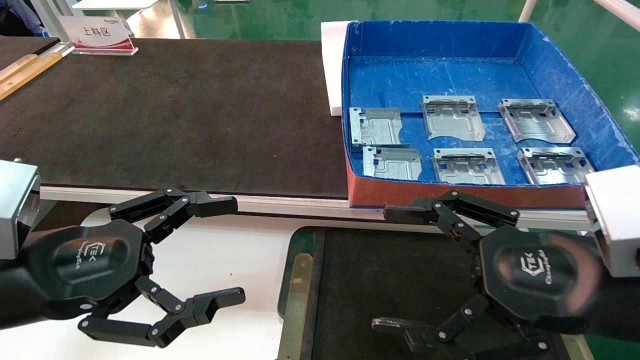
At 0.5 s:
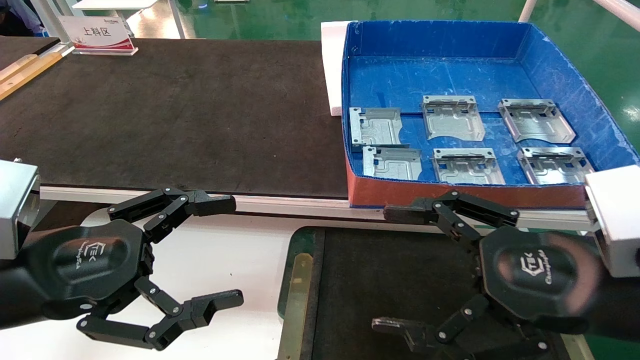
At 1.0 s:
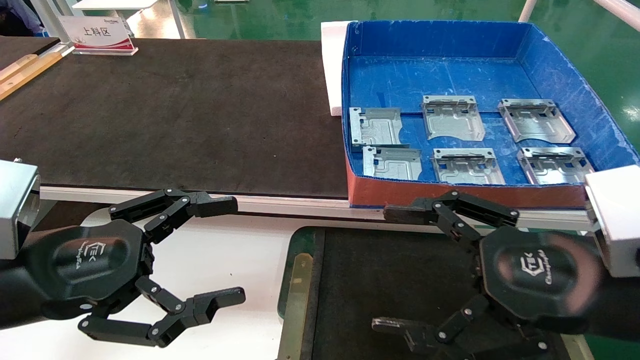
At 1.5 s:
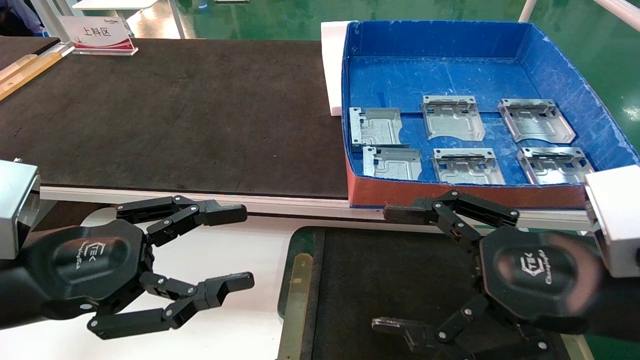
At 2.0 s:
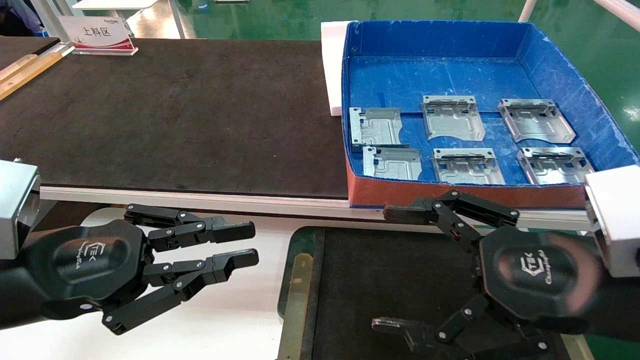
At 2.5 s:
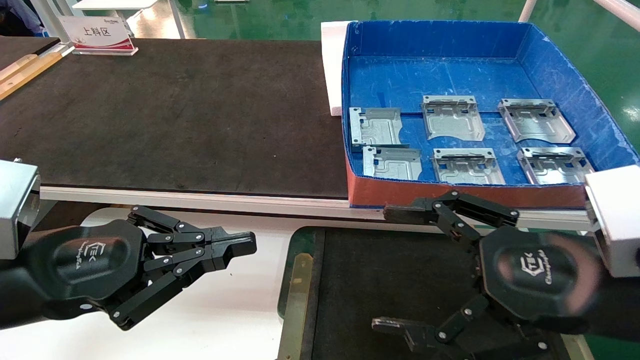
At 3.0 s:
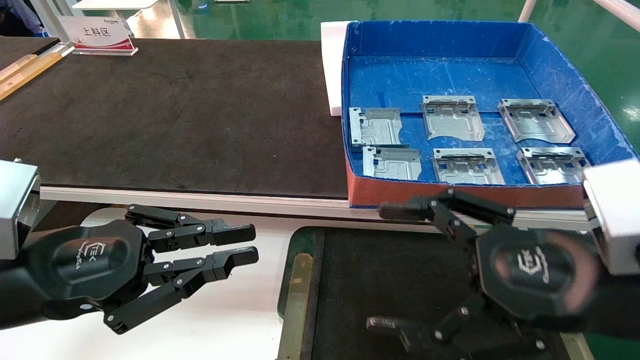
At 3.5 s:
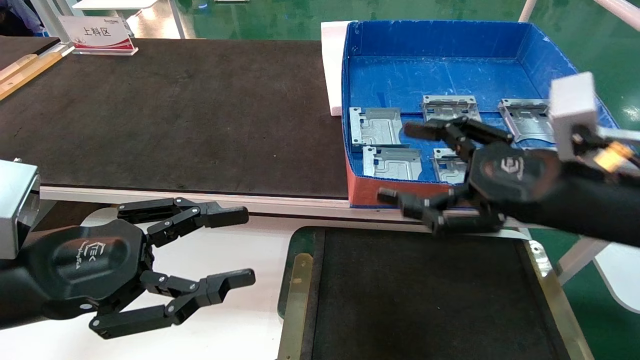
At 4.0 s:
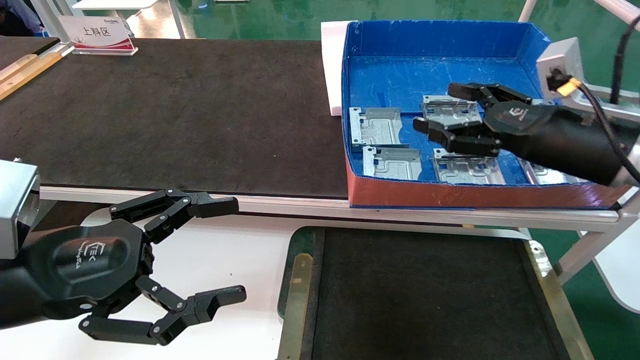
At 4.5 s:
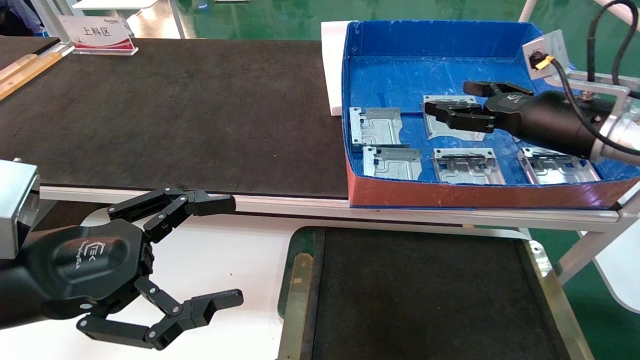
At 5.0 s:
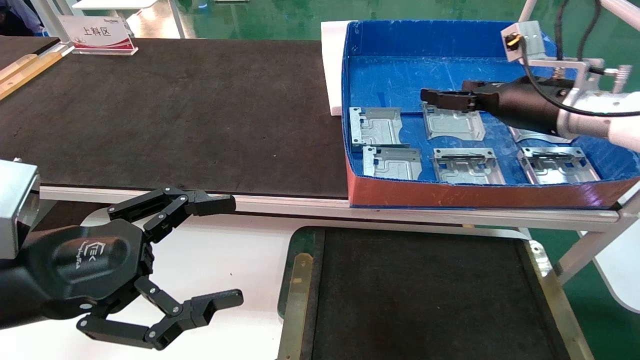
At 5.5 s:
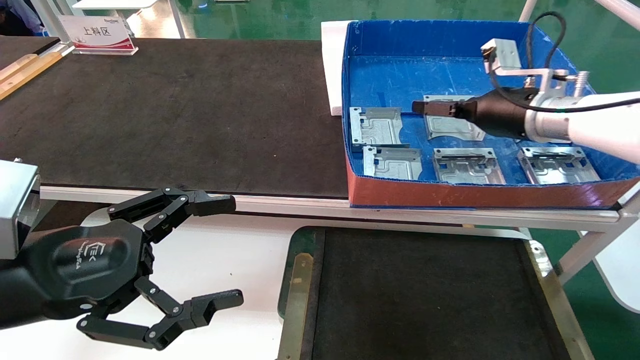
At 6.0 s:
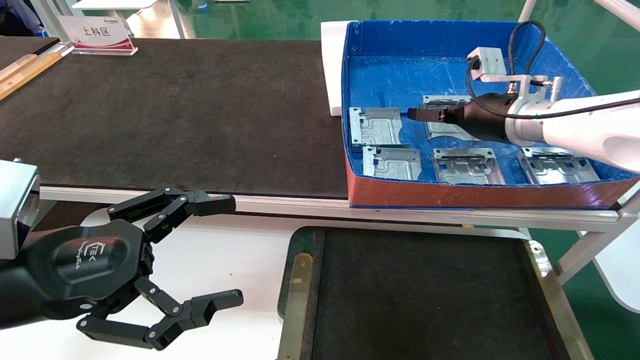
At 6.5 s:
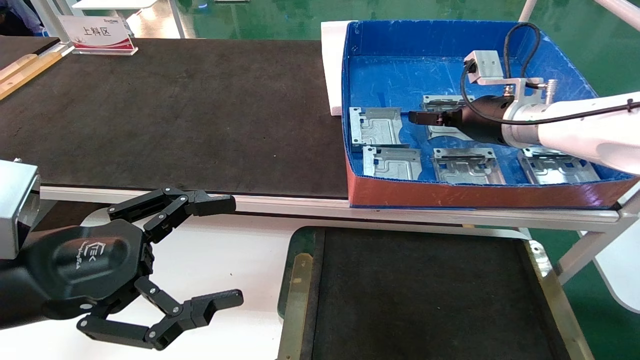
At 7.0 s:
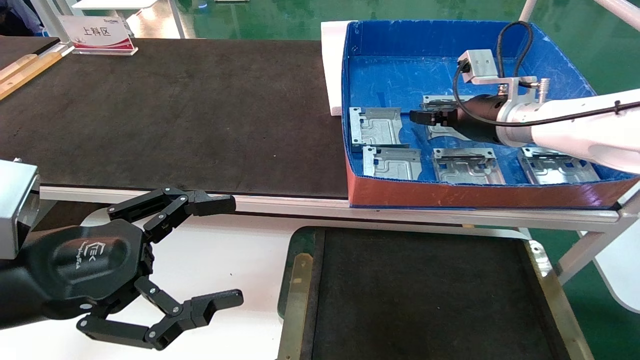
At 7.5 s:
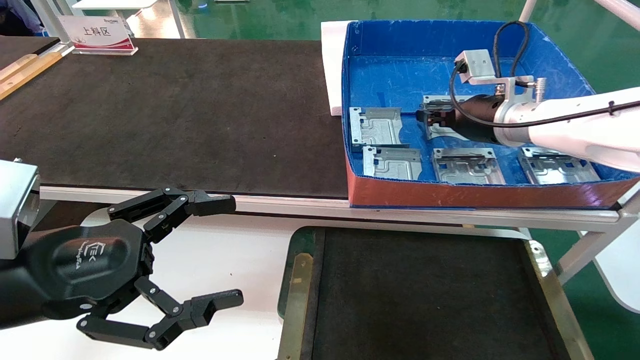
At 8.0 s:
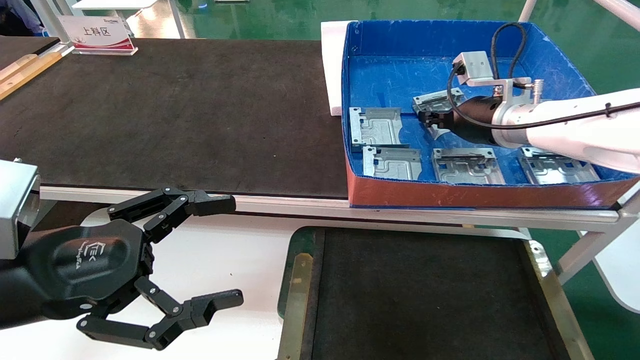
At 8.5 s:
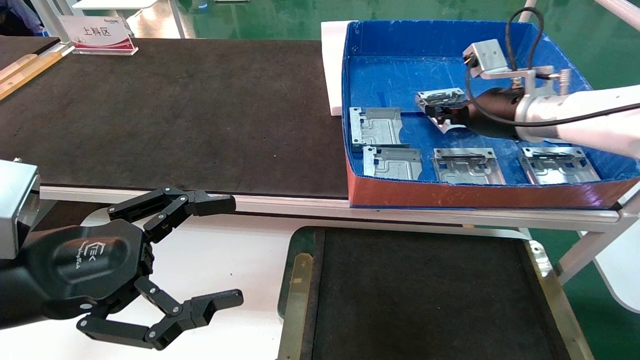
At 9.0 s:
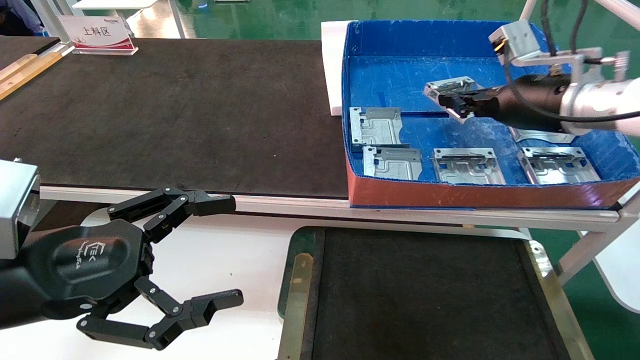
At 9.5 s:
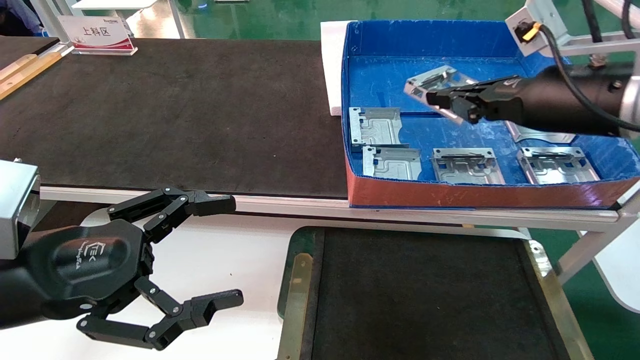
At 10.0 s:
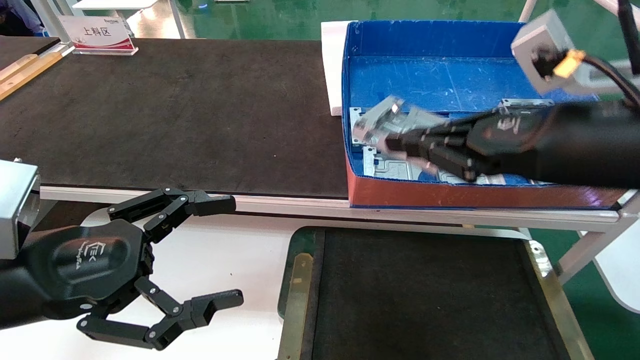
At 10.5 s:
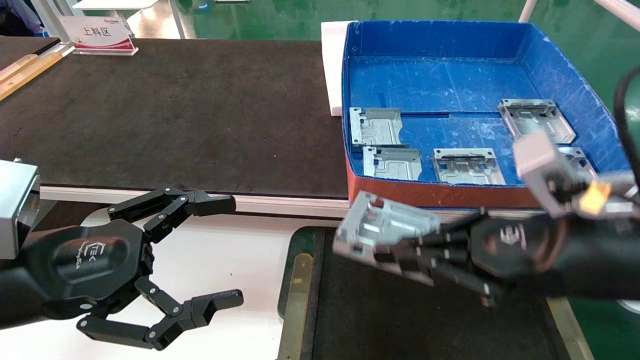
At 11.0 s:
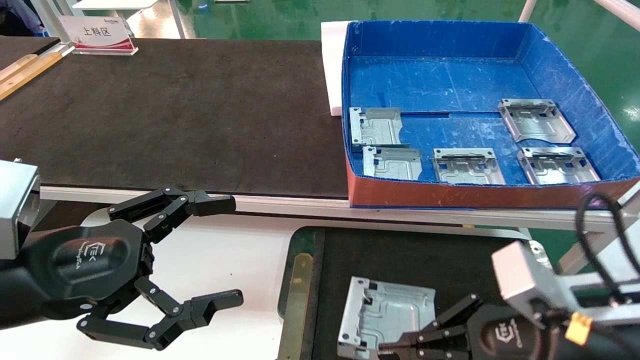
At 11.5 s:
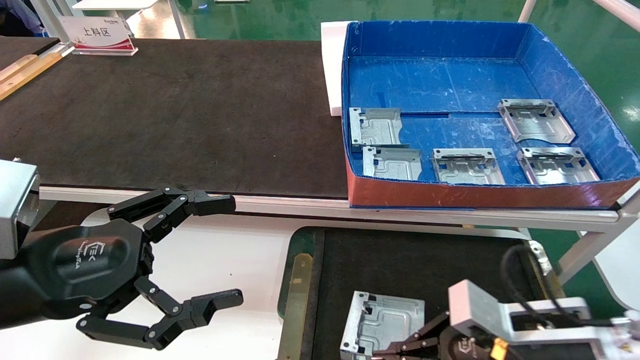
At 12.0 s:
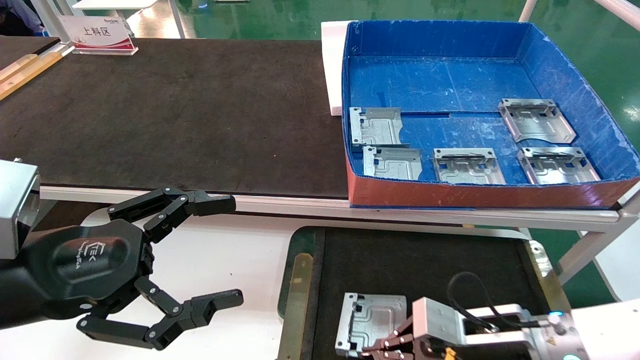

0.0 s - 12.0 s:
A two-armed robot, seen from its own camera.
Task of the whole recording: pick up parts and place them into a black container.
Step, 3.5 s - 7.5 s: Pick up the hard drive bracket from the feeding area.
0.0 s - 2.0 s: The left gripper closes its fingers.
2.0 s - 4.0 s: The left gripper opens, while the right gripper shifts some 15 cm forward.
4.0 s - 6.0 s: The right gripper shifts approximately 10 cm forward.
6.0 s - 8.0 s: The right gripper closes up.
8.0 s - 10.0 s: The right gripper moves backward, some 25 cm.
10.0 s - 12.0 s: The right gripper moves downward, some 25 cm.

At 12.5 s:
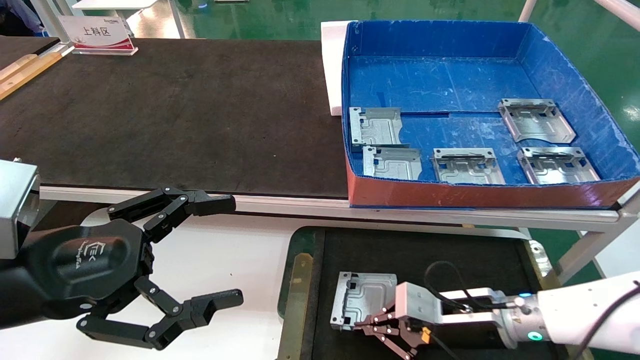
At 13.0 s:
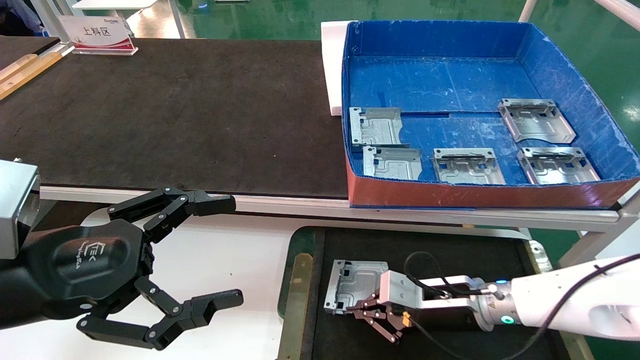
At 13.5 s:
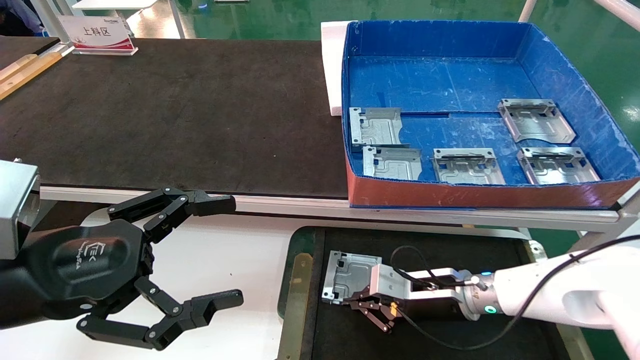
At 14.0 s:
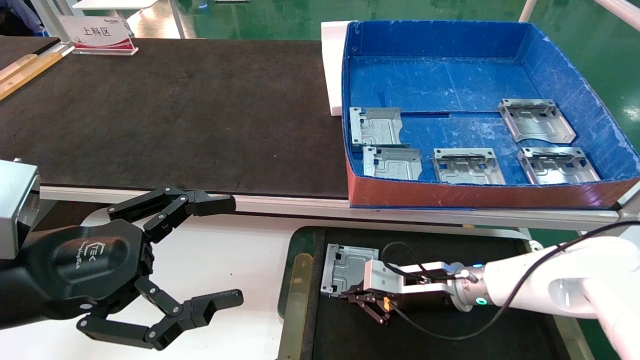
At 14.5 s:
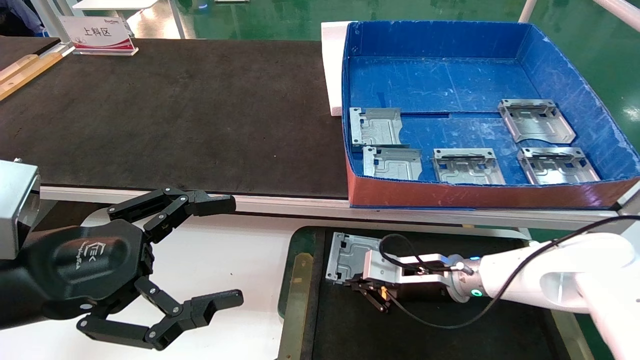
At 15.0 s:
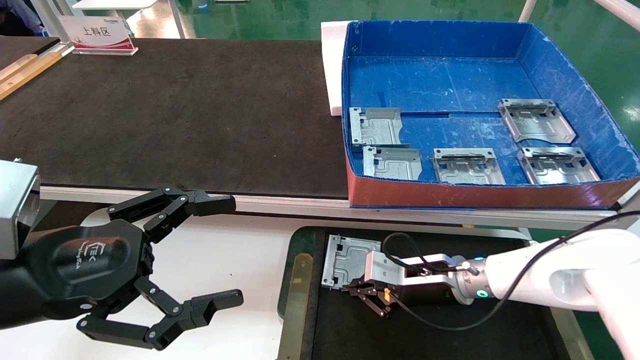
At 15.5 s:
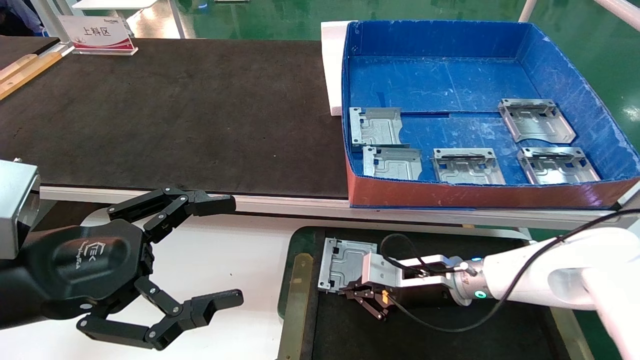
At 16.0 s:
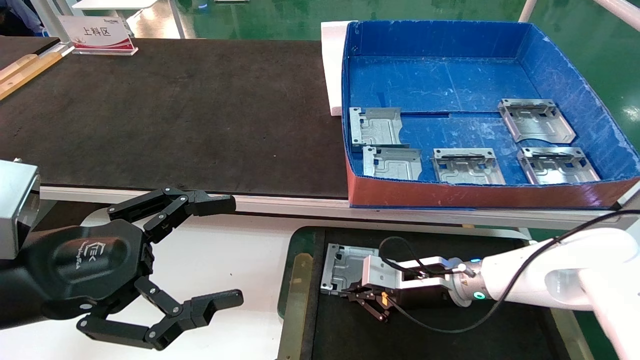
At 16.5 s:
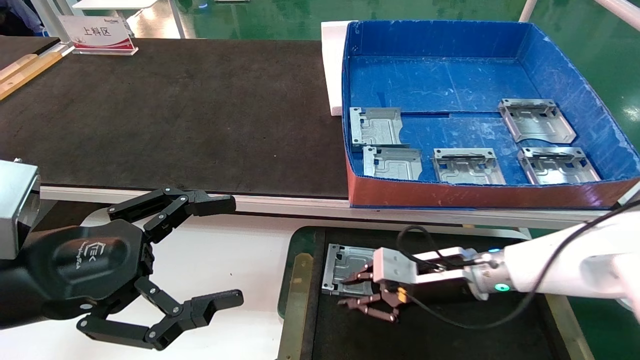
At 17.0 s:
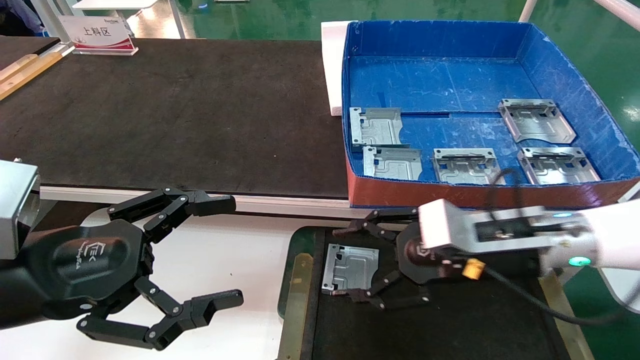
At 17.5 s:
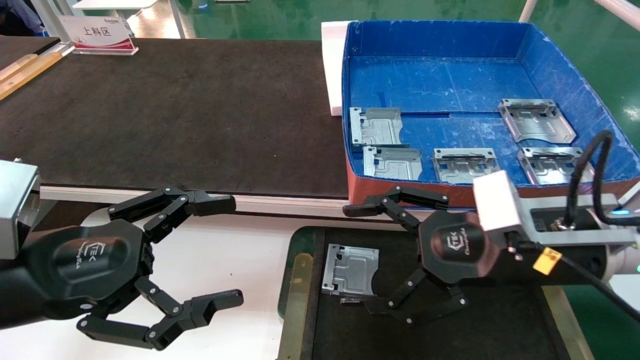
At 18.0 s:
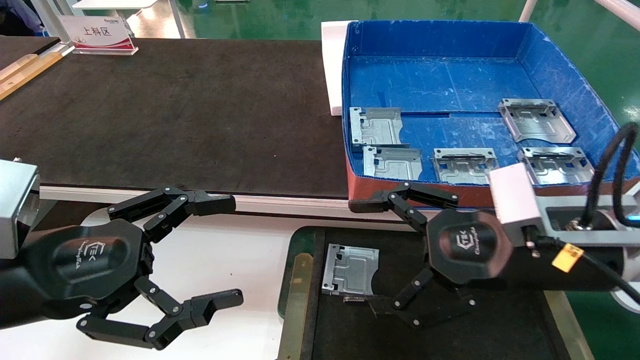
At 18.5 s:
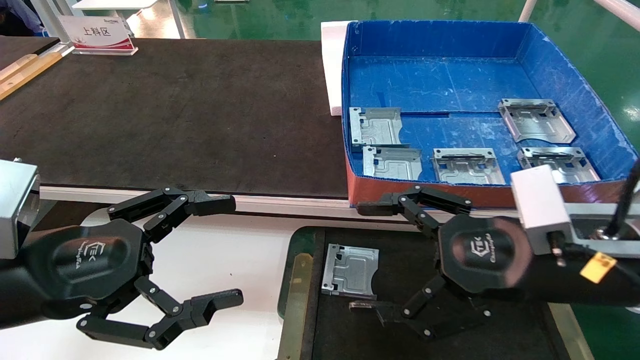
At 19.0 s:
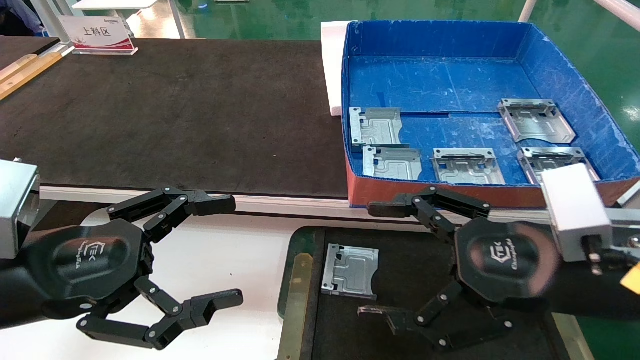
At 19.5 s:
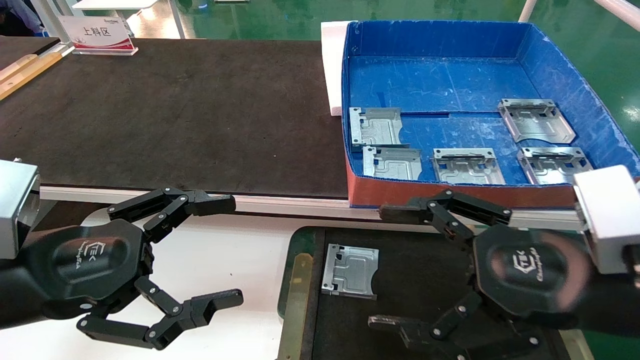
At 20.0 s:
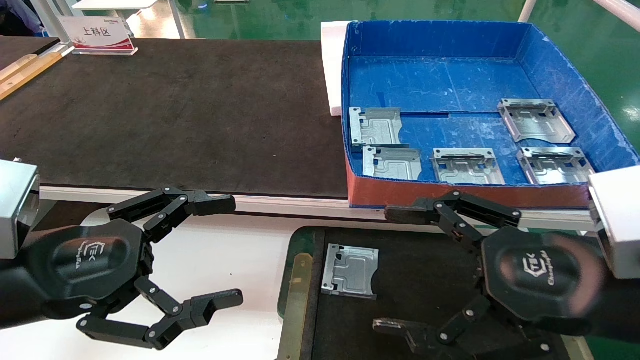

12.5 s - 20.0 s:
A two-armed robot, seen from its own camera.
Task of the whole recording: pick up parts and place them into a black container.
Step, 12.5 s - 16.5 s: Place the hard drive bracket into the box.
12.5 s - 14.5 s: The right gripper travels forward by about 10 cm.
14.5 s - 16.5 s: The right gripper moves approximately 5 cm.
16.5 s - 18.0 s: The right gripper moves backward and upward, about 15 cm, and opens.
18.0 s - 20.0 s: The right gripper travels backward by approximately 5 cm.
